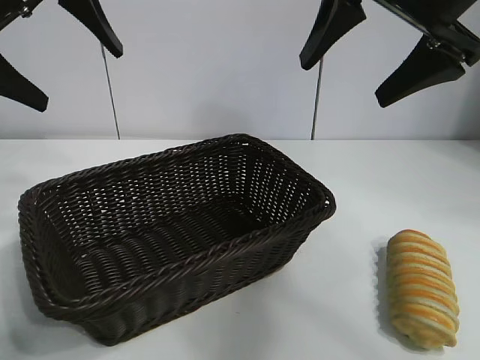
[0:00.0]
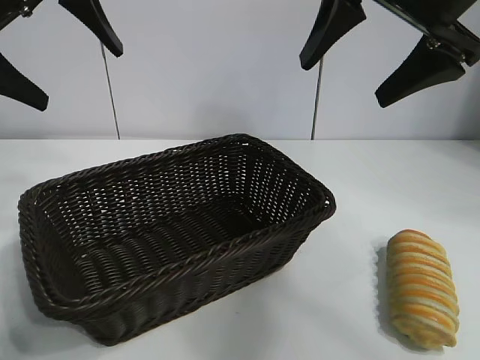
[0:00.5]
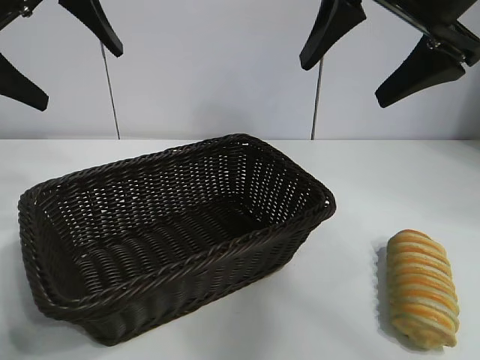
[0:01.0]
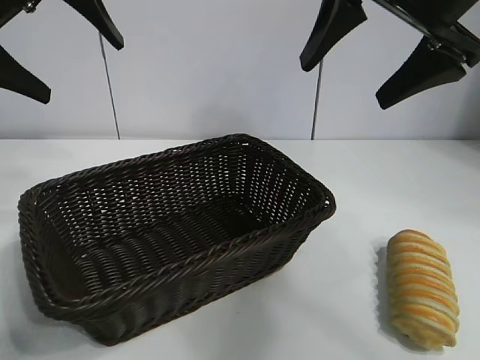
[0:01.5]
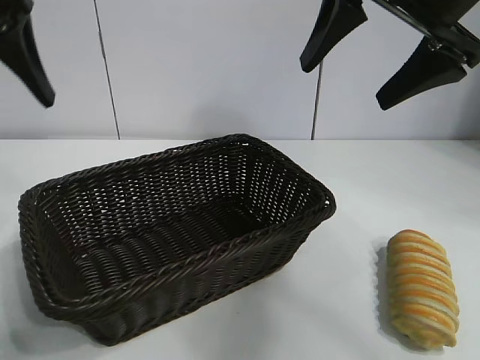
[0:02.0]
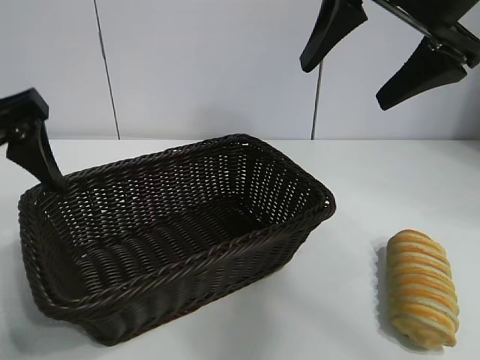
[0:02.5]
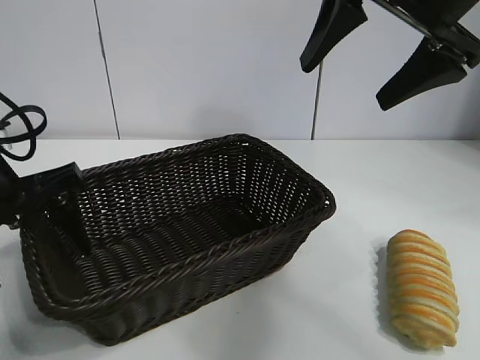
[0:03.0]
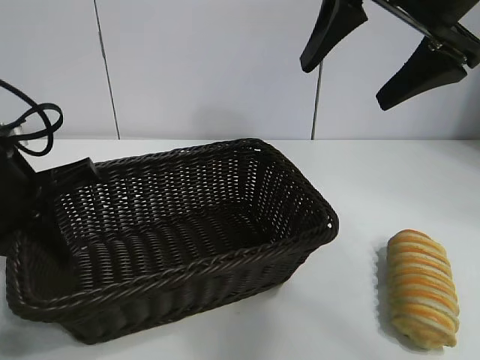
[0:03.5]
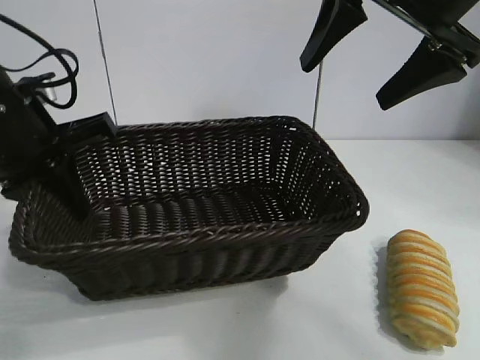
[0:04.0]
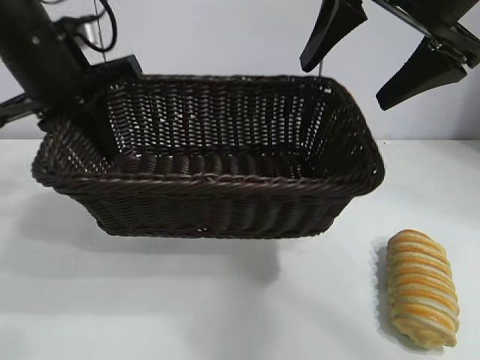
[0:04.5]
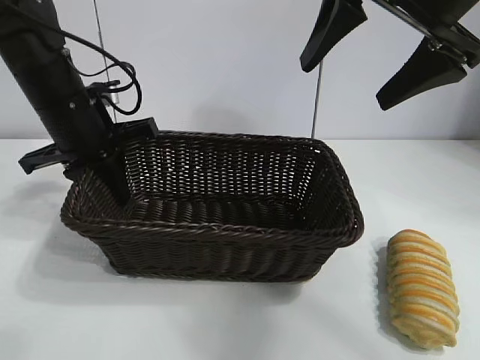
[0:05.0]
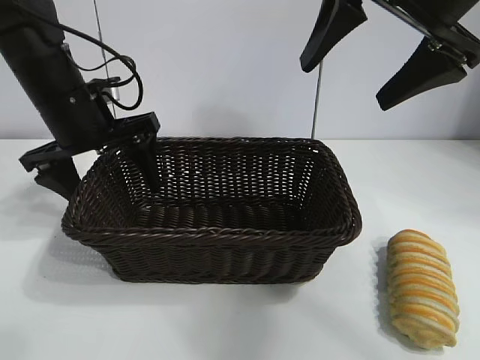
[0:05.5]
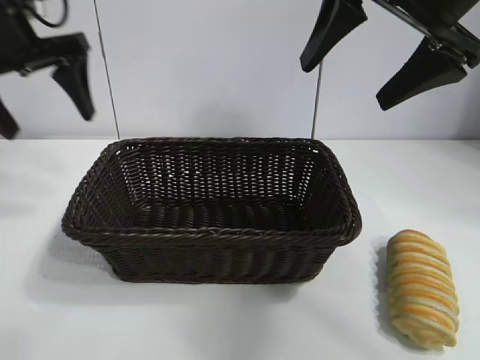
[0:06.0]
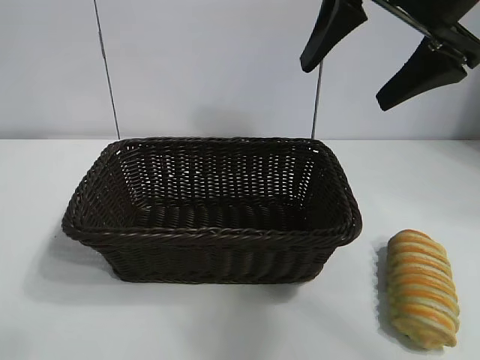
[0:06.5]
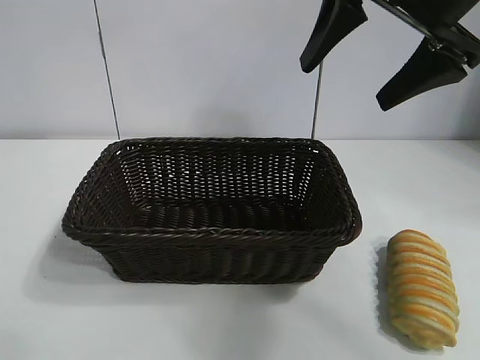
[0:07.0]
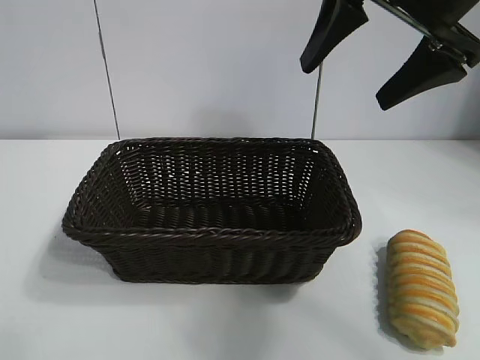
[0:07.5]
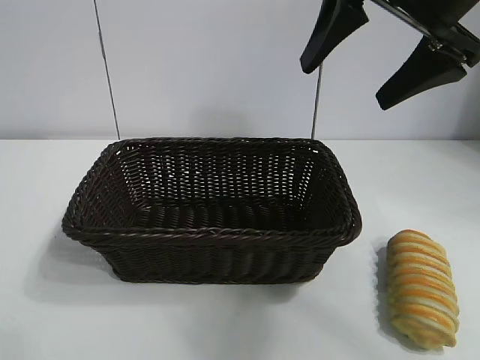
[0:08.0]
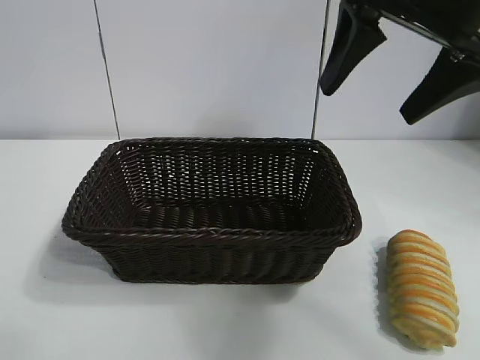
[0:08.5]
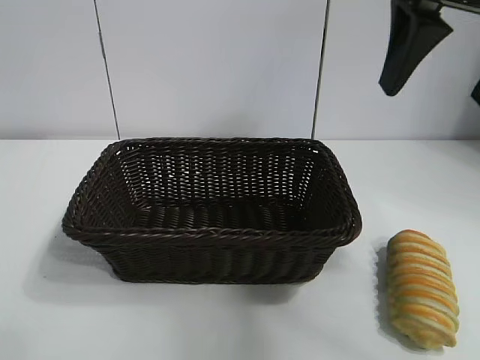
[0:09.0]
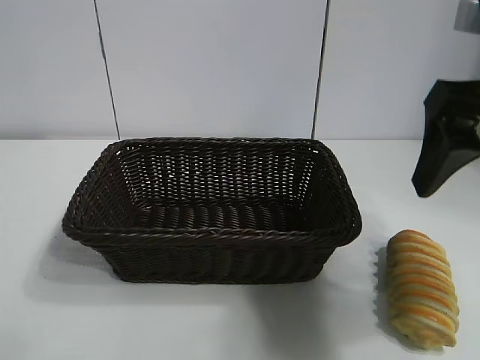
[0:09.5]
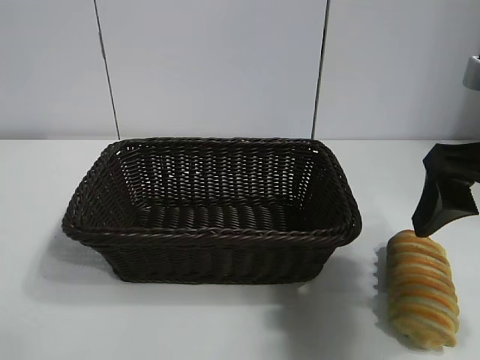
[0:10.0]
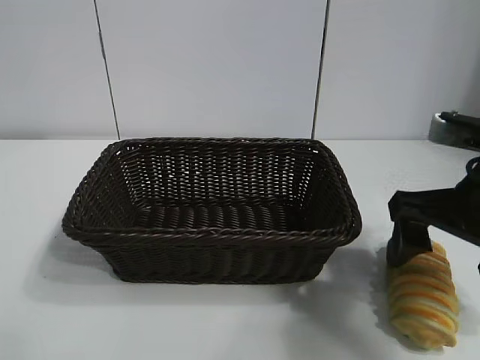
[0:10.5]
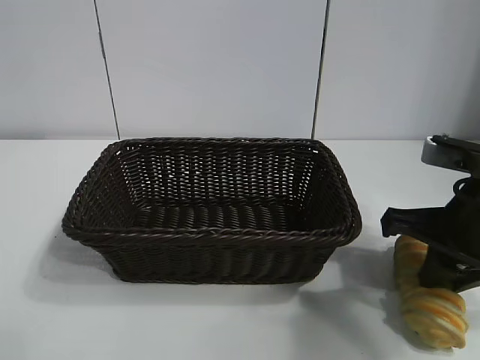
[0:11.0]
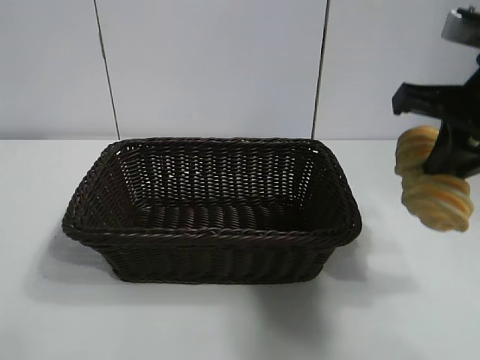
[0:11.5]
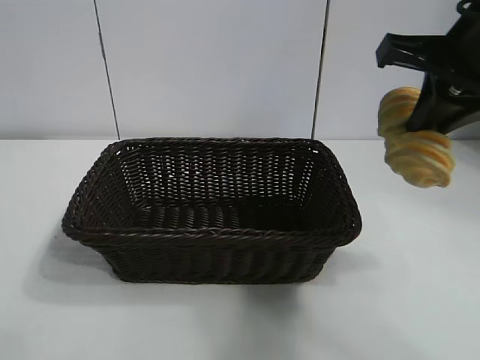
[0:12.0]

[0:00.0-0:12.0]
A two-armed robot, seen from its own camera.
Task of the whole recording: pick up the long bread and put it into the basket.
Step, 0:01.5 to 0:03.0: Grasp the basket with the left gripper.
Step, 0:03.5 to 0:05.5: Place the basket in the center of the table with the left gripper.
Step, 0:06.0 to 0:11.0: Grasp the long bread with right gripper.

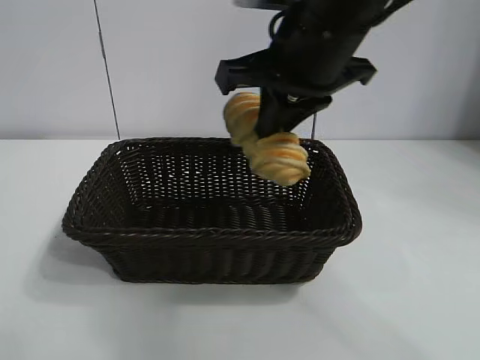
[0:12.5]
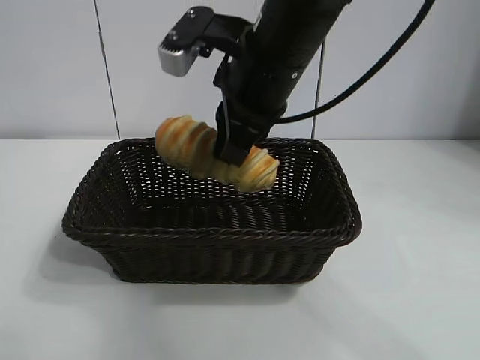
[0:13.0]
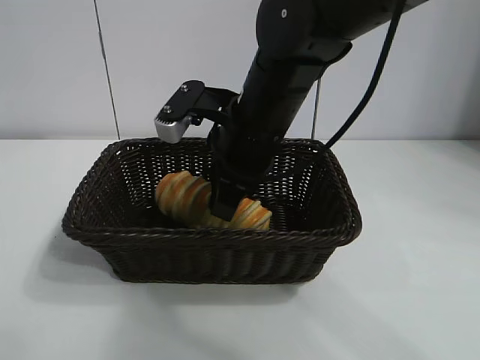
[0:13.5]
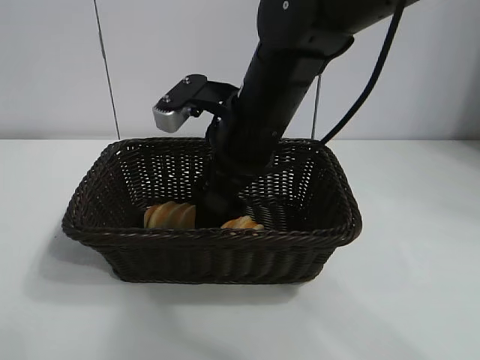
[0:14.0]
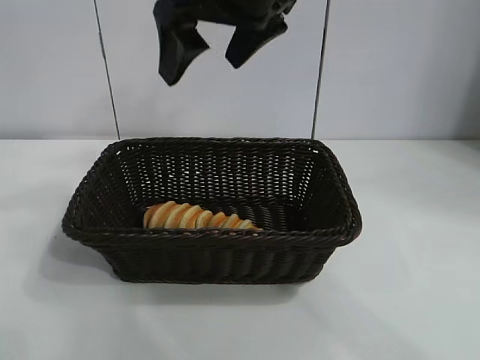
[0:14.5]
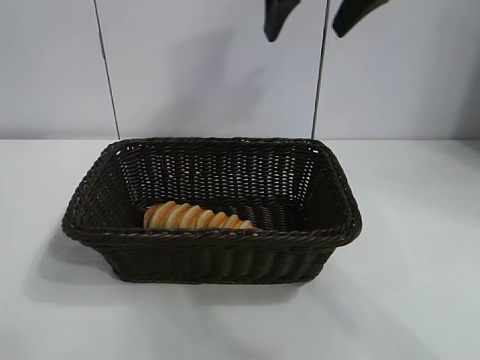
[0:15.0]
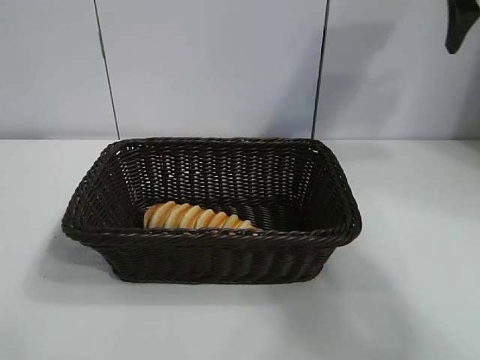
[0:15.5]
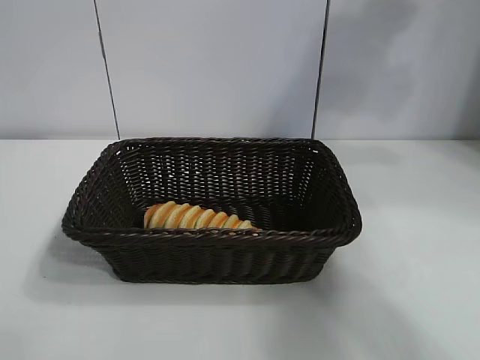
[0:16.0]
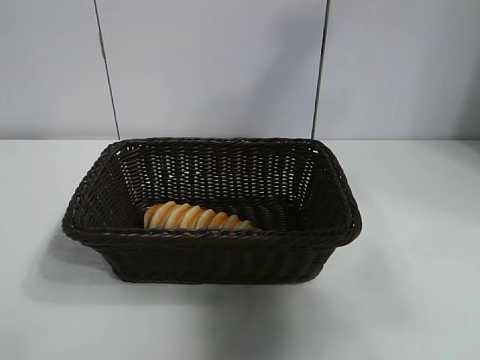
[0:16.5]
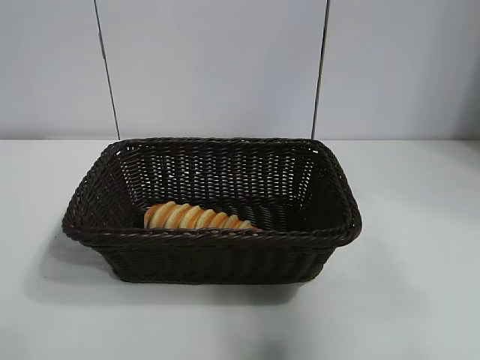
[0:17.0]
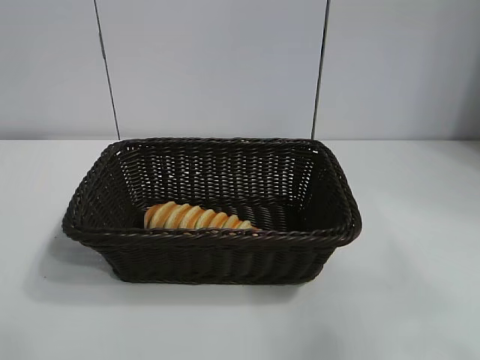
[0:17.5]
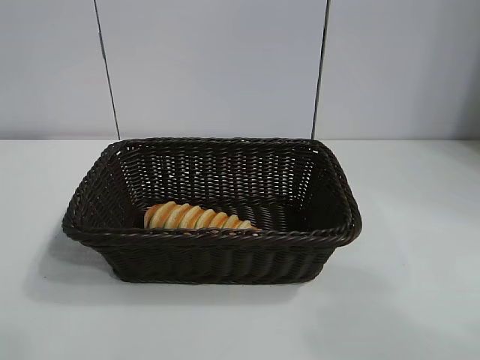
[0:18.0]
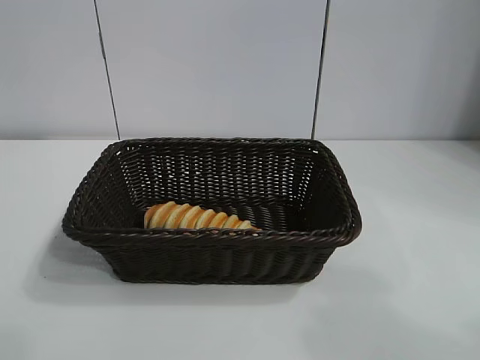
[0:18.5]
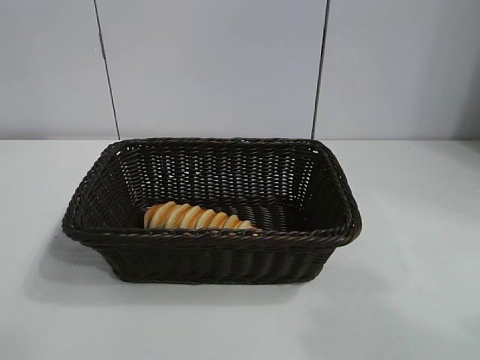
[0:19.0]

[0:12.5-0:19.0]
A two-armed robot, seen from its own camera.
Task of the whole recording: pick up the long bread and put it into the basket.
Step, 0:12.5 to 0:14.0: Place the long bread in the basket with right gripper.
